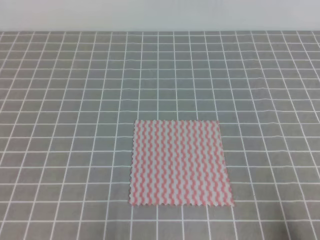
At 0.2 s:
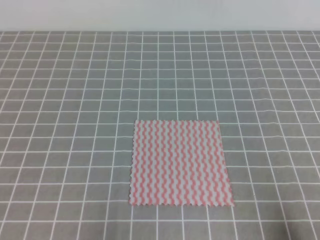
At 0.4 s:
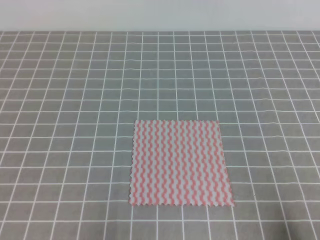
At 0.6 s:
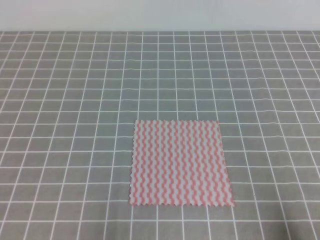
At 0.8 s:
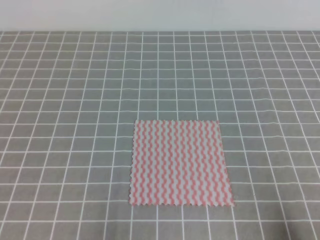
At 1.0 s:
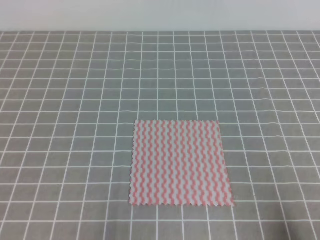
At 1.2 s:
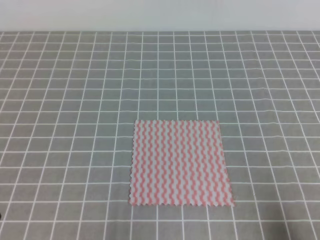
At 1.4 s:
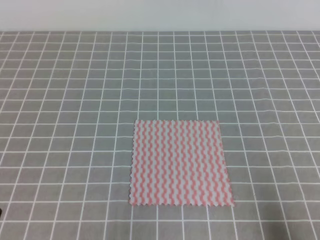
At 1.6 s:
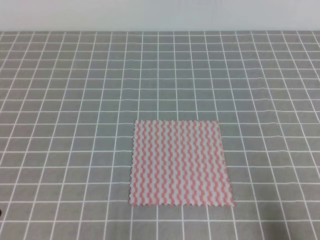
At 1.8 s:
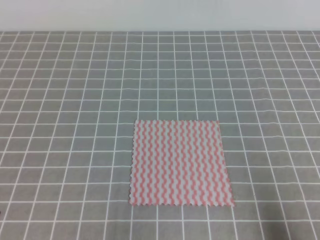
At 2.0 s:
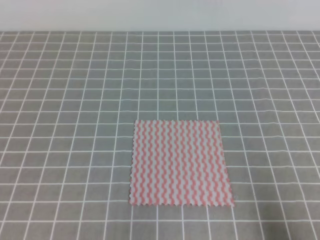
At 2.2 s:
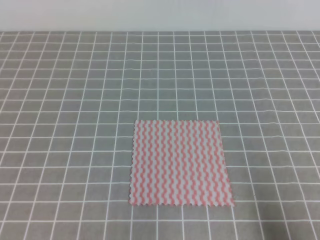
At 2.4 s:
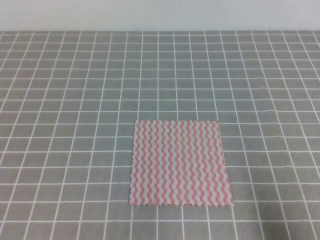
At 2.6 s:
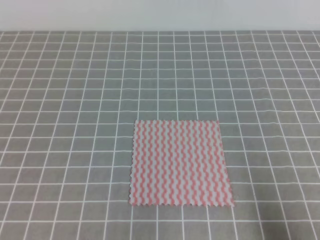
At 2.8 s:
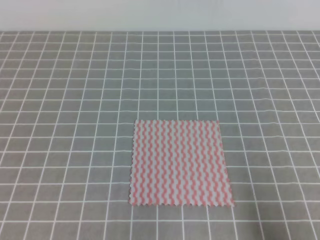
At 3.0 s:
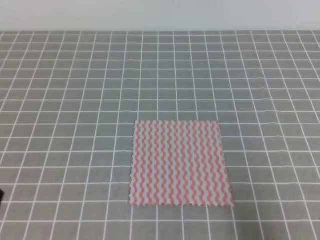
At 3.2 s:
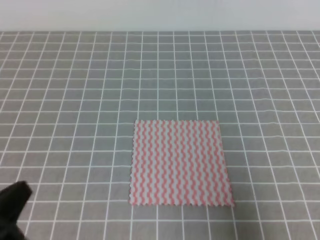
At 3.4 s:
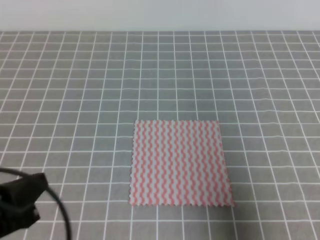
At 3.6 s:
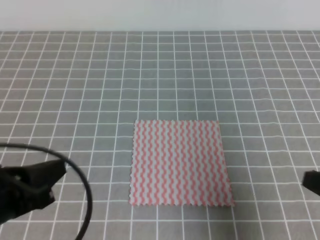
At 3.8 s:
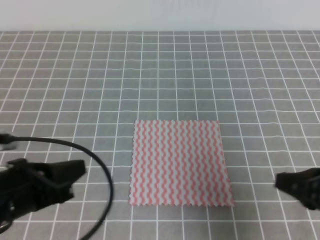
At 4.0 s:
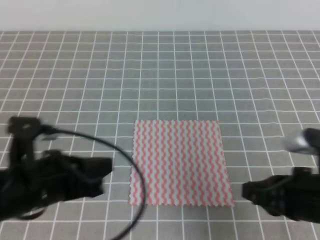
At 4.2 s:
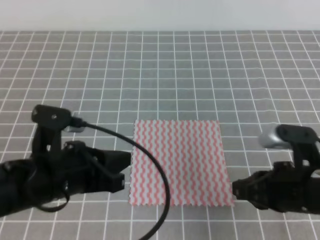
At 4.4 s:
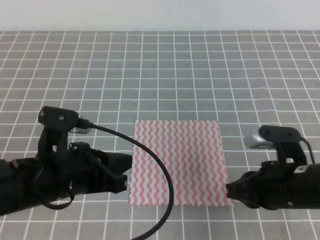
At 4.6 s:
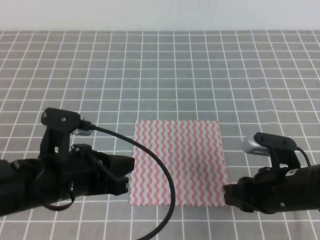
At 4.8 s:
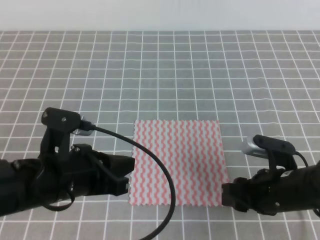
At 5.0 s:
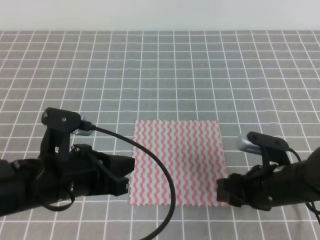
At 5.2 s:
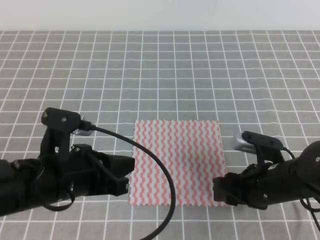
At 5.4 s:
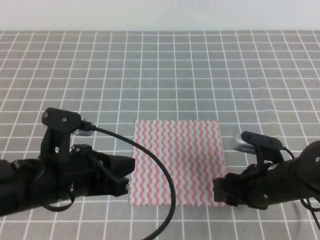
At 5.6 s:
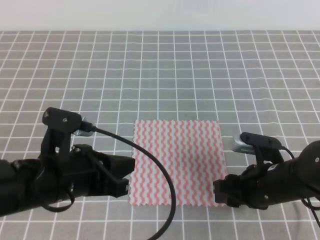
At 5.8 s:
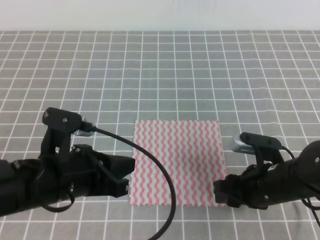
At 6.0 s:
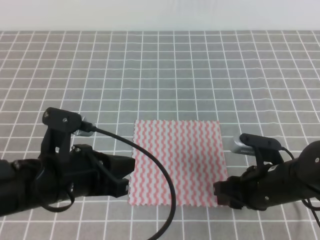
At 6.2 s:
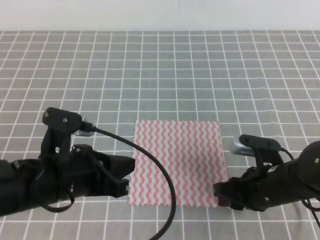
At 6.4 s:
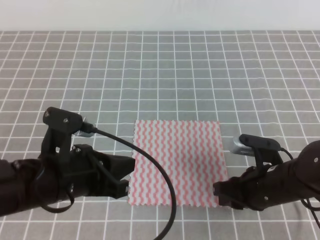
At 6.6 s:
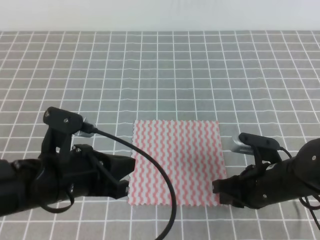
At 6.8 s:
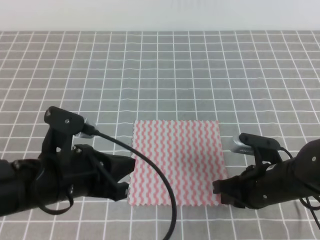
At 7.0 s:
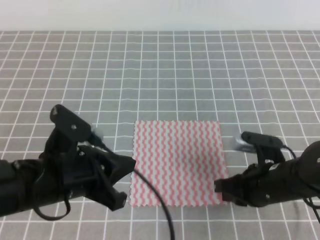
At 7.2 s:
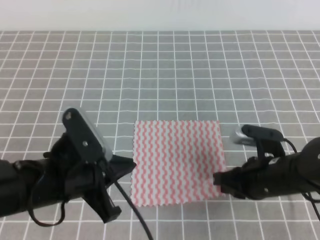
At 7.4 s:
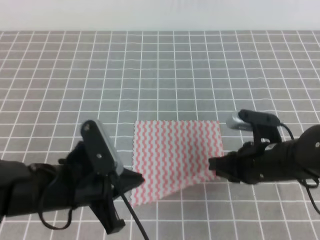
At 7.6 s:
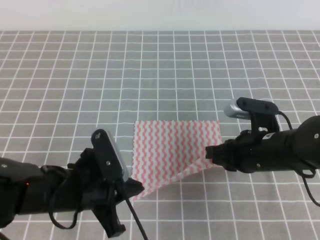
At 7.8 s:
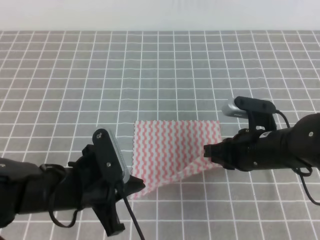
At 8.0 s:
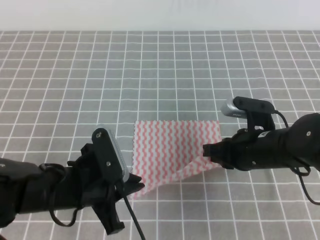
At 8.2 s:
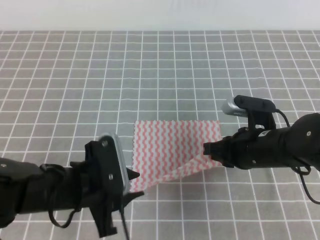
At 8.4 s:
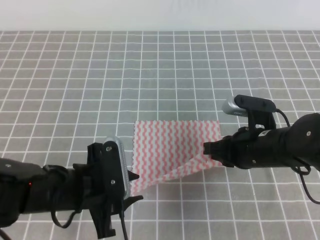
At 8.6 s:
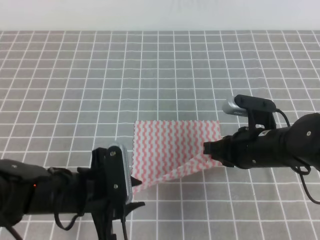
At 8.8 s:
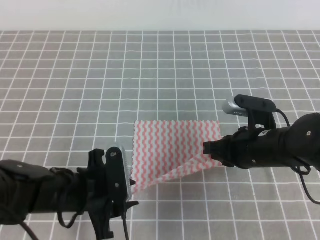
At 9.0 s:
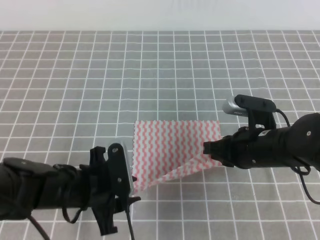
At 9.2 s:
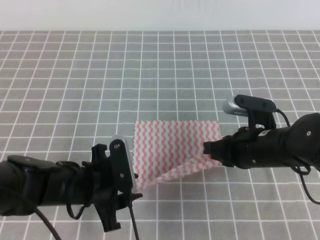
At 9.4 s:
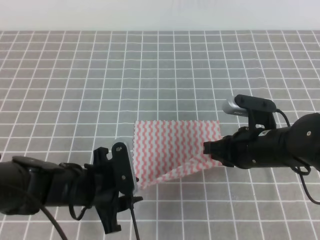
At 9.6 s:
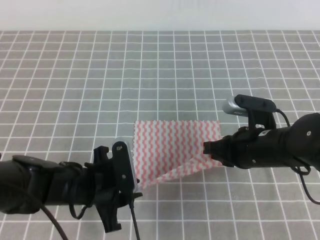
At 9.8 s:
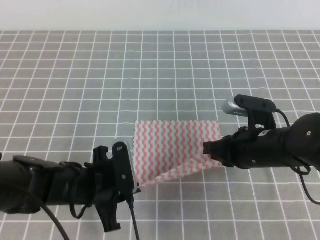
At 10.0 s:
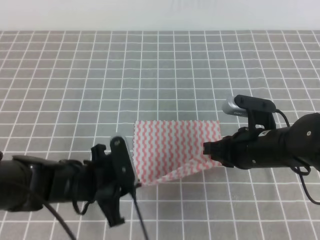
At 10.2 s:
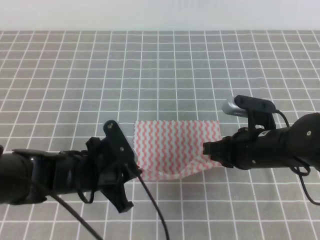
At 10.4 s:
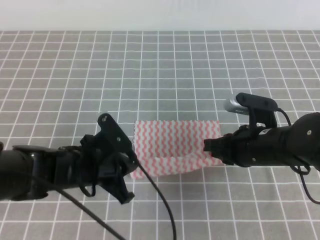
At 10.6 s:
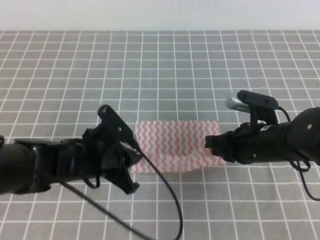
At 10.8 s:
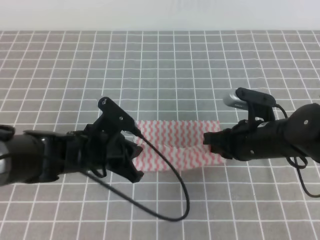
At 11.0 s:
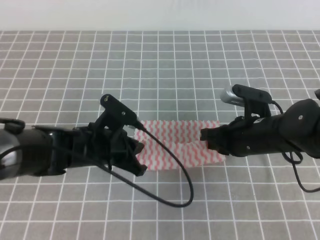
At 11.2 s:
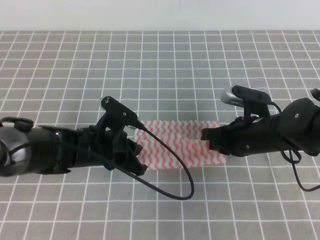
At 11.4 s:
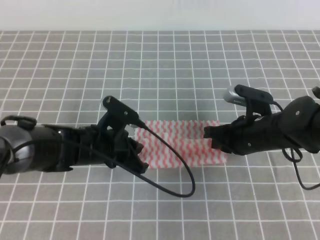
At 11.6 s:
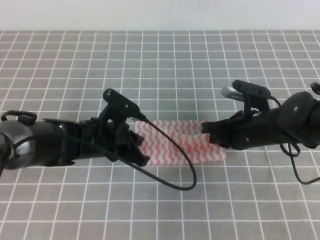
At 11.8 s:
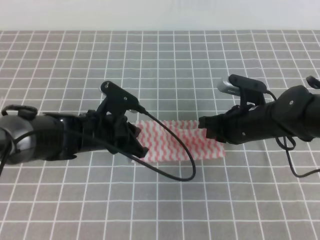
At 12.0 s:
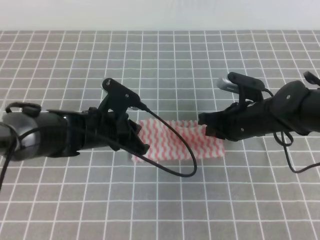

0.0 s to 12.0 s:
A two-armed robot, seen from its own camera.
Step, 0.0 to 10.6 s: Fold the towel upwards with the both gripper.
1.6 to 3.0 s: The right gripper moves upward, approximately 5 cm.
3.0 to 4.4 s: The left gripper shifts about 15 cm forward and to the right. The right gripper goes roughly 20 cm forward and to the left.
4.4 to 6.0 s: The right gripper moves about 5 cm, and opens its fingers.
6.0 to 7.6 s: The right gripper shifts by some 5 cm, and closes up.
7.6 to 9.0 s: The left gripper opens up.
9.0 to 10.4 s: The left gripper closes its fingers.
10.4 to 12.0 s: Both grippers travel together forward, some 5 cm.

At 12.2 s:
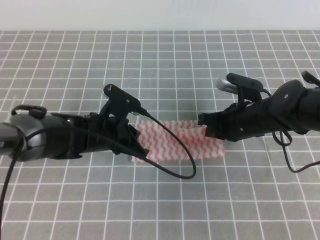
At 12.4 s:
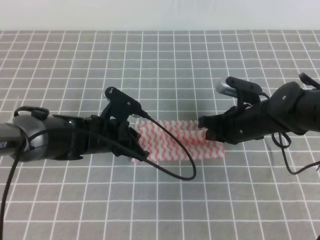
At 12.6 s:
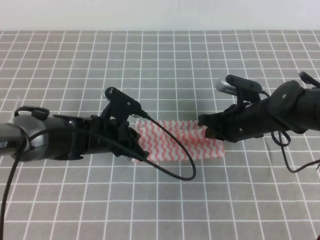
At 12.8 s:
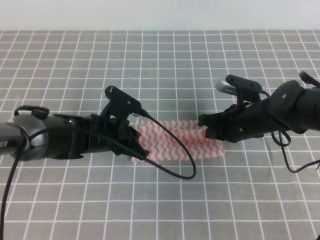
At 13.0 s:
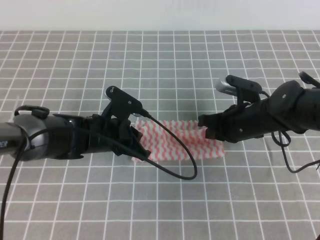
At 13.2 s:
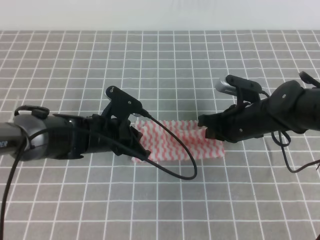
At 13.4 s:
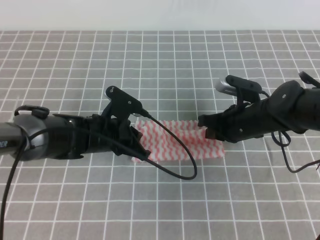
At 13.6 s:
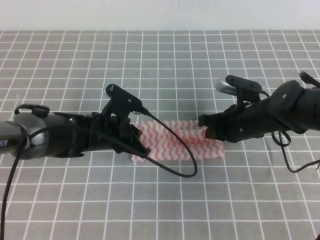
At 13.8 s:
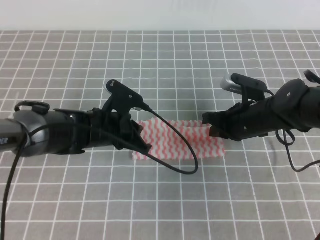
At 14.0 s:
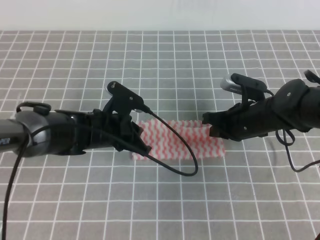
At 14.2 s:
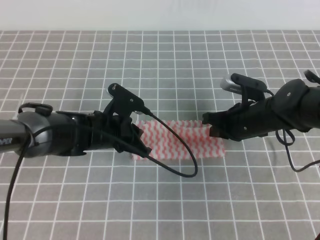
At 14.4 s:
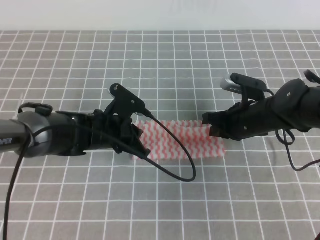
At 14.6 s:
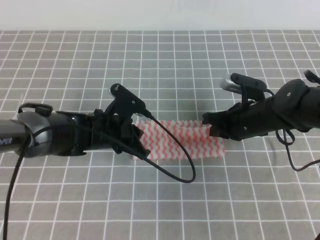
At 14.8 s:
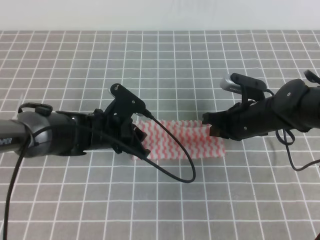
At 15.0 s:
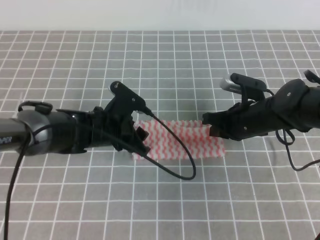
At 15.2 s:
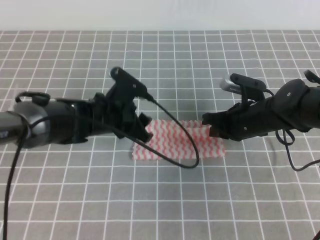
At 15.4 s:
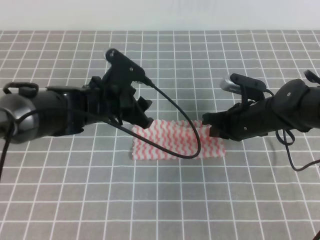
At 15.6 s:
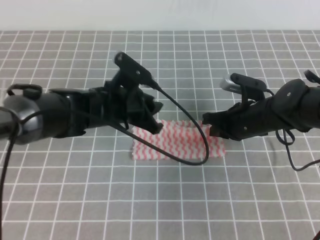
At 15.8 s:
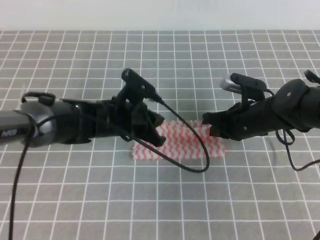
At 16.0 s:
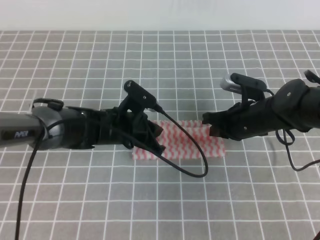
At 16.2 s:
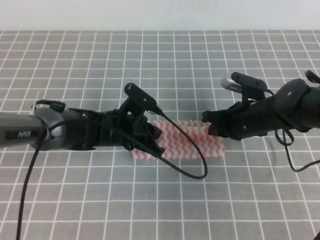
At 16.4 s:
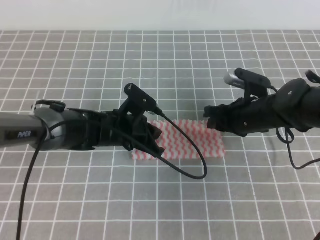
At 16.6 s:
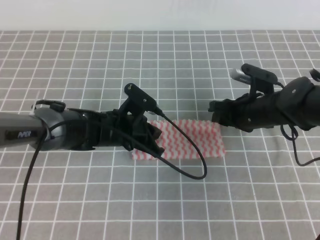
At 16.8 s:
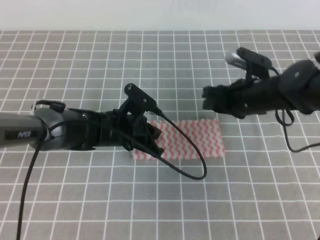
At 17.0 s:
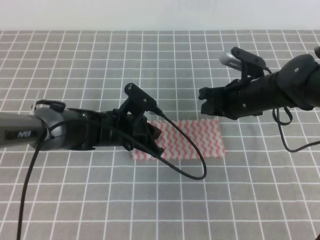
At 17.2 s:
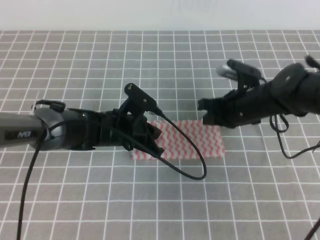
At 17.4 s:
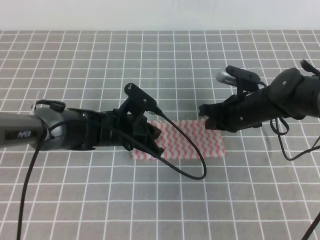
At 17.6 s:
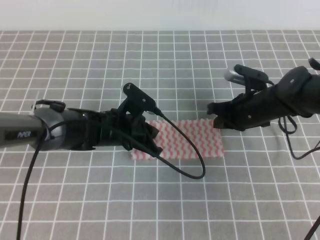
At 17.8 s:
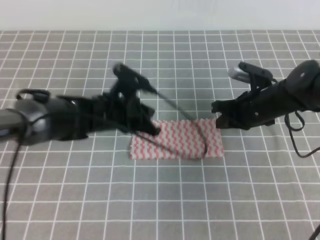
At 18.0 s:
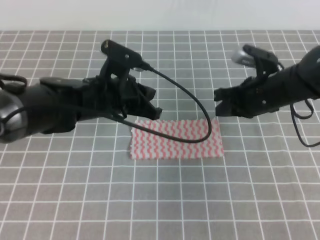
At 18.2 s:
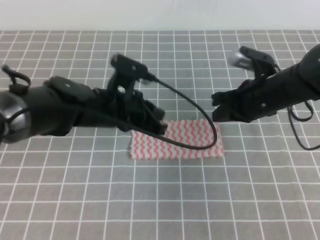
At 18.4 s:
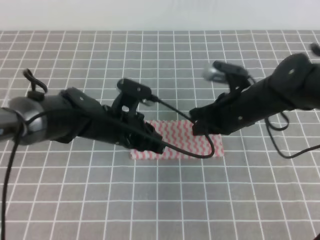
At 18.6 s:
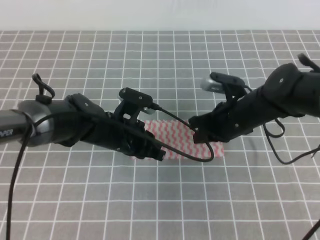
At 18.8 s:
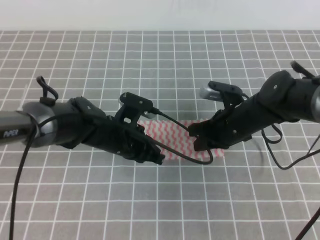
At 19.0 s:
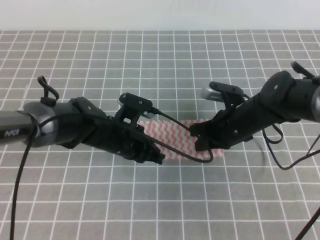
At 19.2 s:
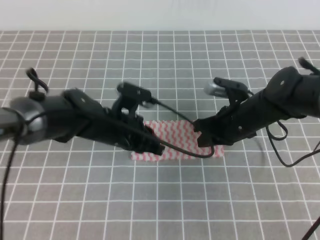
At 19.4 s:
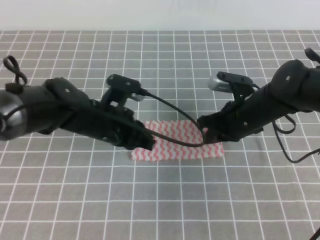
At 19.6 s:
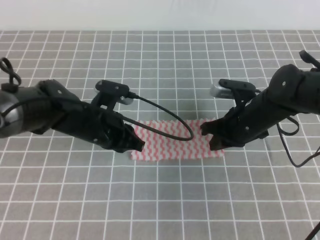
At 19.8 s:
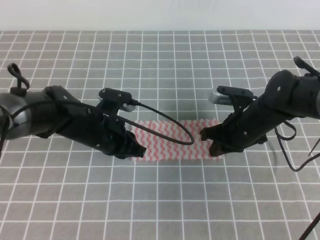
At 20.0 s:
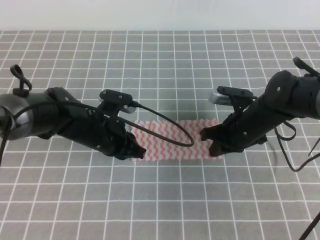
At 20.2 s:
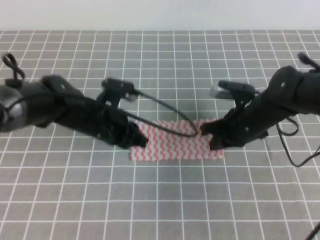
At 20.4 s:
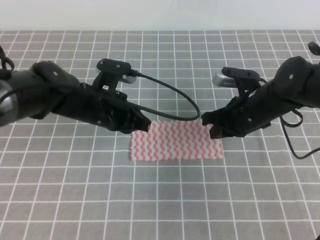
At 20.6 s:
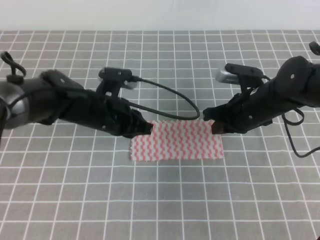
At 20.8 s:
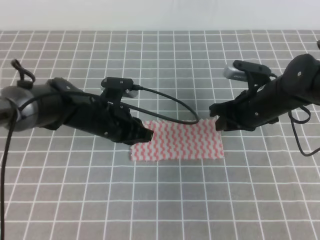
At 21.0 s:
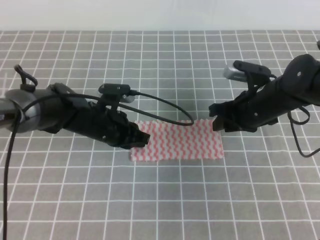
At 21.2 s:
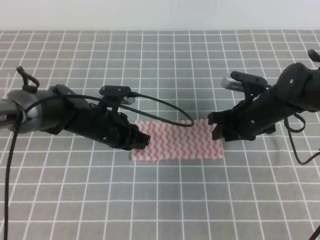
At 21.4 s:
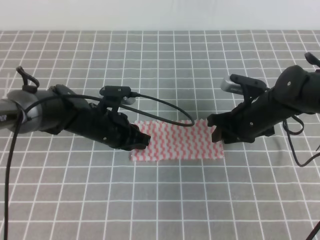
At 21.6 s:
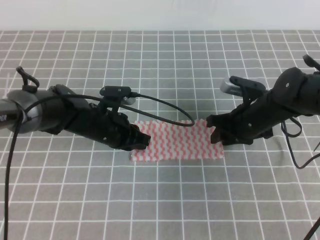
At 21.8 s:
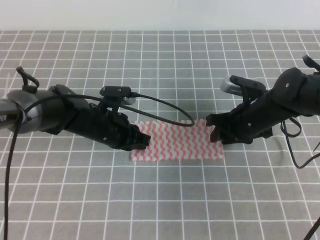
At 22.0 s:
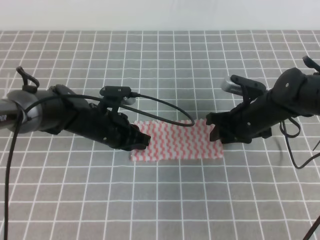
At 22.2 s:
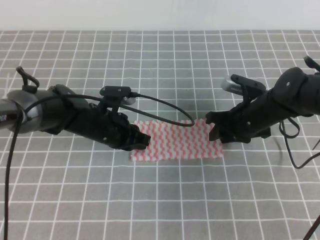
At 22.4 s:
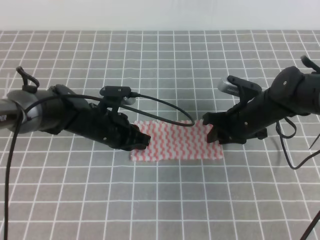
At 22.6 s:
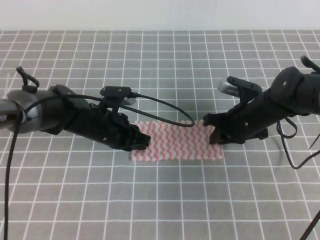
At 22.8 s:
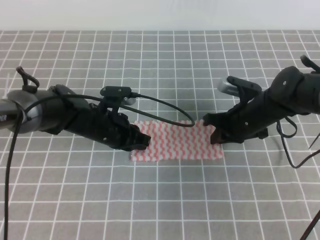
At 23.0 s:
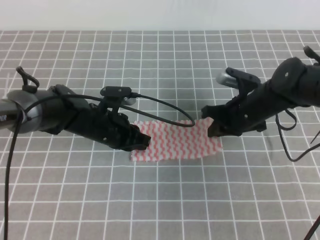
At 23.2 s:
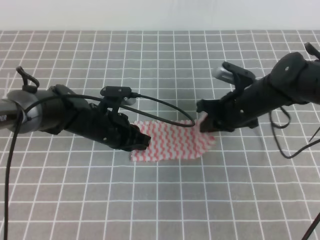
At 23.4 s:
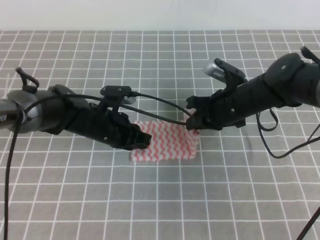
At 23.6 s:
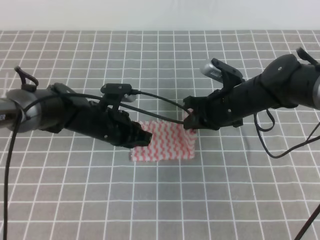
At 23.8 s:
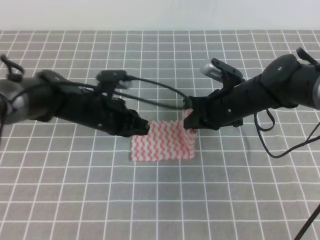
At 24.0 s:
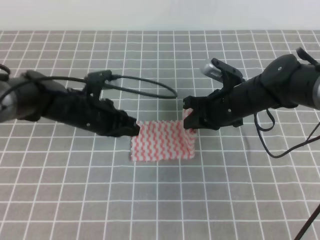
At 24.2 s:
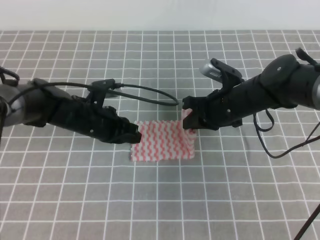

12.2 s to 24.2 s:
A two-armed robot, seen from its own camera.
Step, 12.8 to 16.8 s: Fold the towel from right to left with the right gripper.
Step, 17.0 to 19.4 s: Tidy up the towels.
12.2 to 13.8 s: Both grippers stay put.
13.8 to 15.2 s: The left gripper opens.
15.2 to 16.6 s: The left gripper closes up, while the right gripper opens its fingers.
16.6 to 18.2 s: The right gripper closes up. The left gripper goes approximately 10 cm upward.
18.2 to 19.8 s: The left gripper ends up roughly 5 cm from where it was. The right gripper heads downward, covering some 5 cm.
19.8 to 21.2 s: The right gripper opens up.
21.2 to 22.6 s: The right gripper closes.
22.6 to 24.2 s: The right gripper moves some 5 cm.
